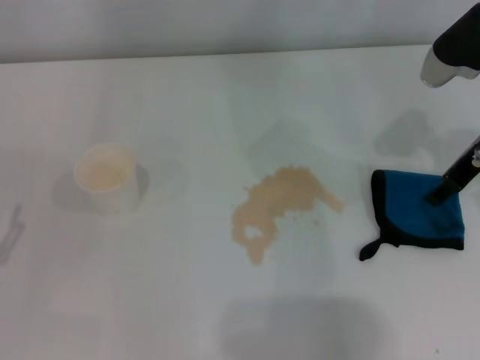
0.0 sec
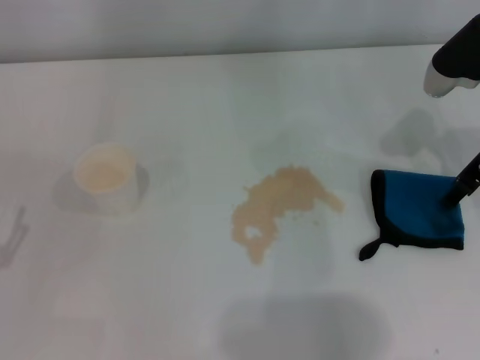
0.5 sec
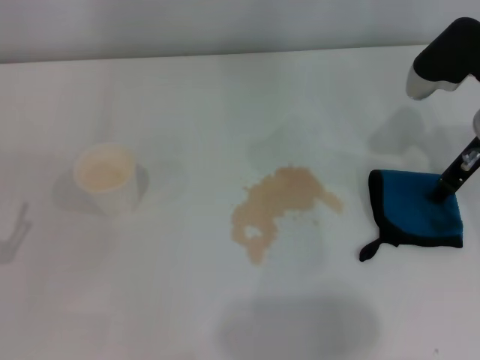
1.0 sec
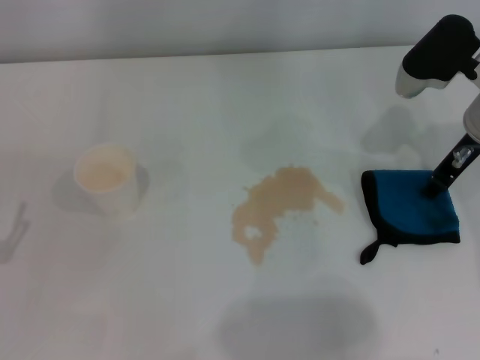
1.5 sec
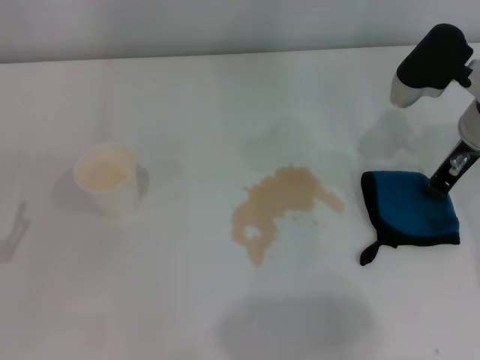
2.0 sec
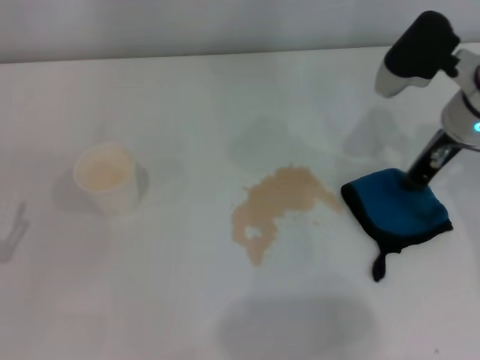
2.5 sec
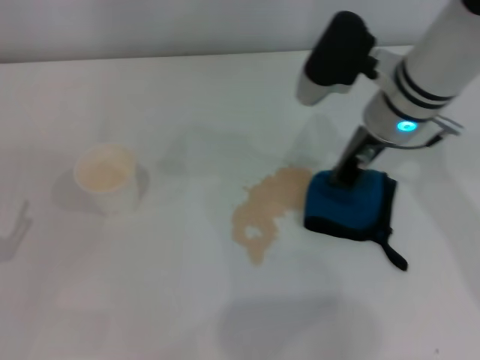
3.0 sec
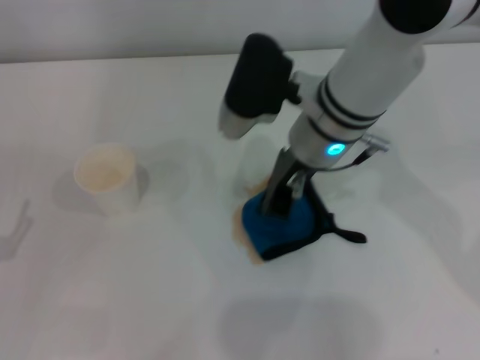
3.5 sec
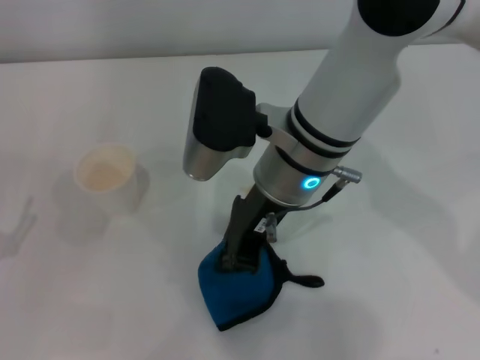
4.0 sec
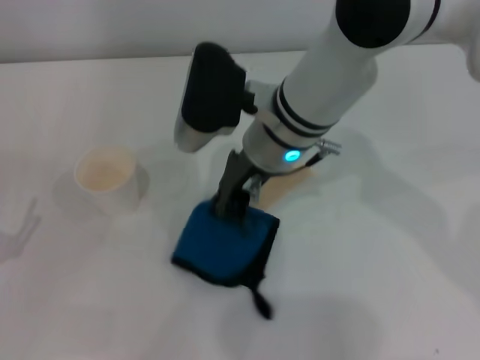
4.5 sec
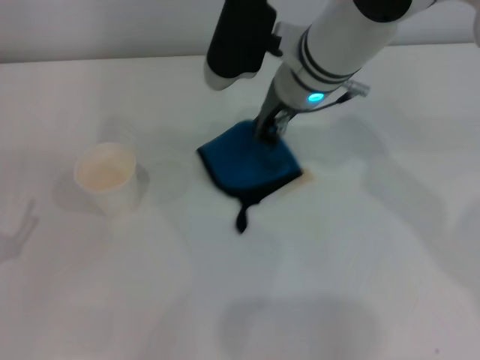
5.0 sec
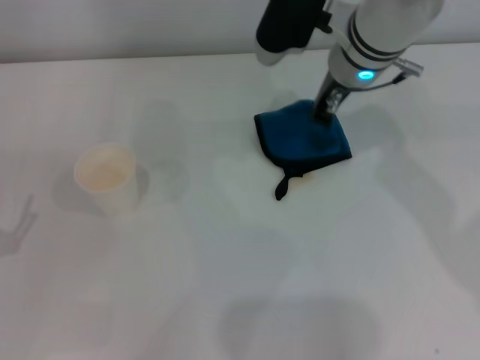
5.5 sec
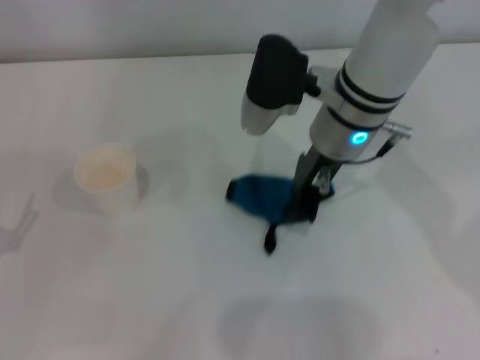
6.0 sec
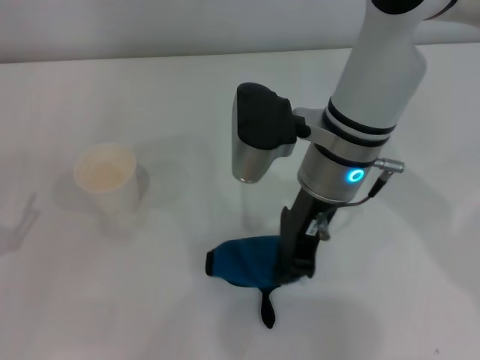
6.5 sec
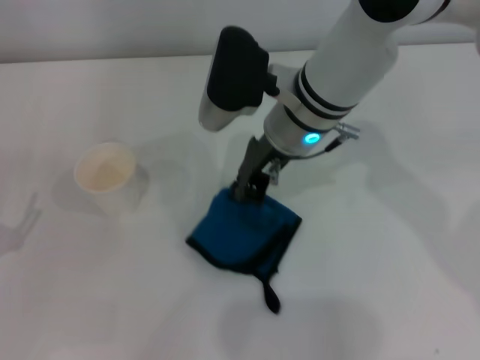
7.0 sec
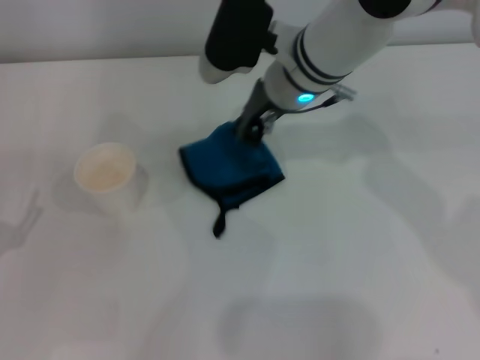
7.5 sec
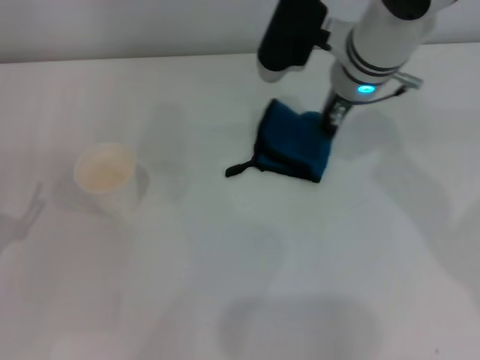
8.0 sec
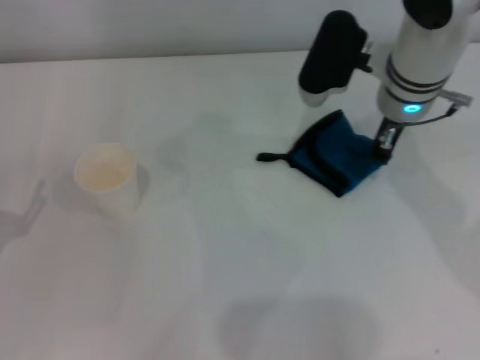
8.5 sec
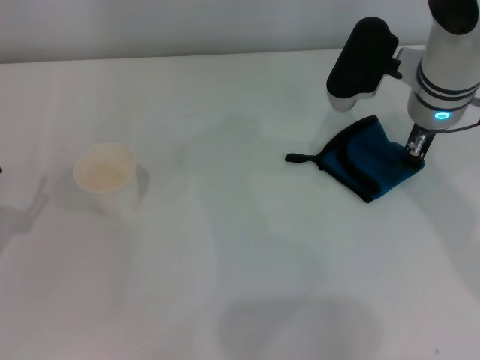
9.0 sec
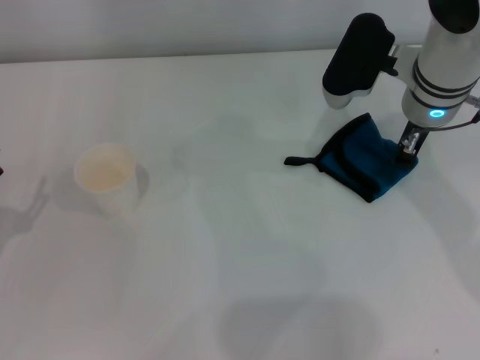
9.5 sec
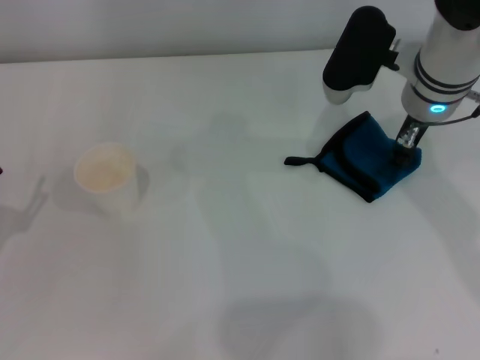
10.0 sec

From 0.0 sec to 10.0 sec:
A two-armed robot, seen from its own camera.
Step, from 0.0 sec to 2.0 sec: Grasp the rag with the right gripper.
Step, from 2.5 sec to 9.0 sec: Wipe the stains off the table with the right gripper.
From 0.0 sec to 2.0 sec: The right gripper closes.
From 2.0 sec to 4.0 sec: The right gripper moves to the left, roughly 20 cm.
From 4.0 sec to 6.0 sec: The right gripper goes some 5 cm to the right.
From 6.0 sec to 8.0 sec: The right gripper shifts by approximately 5 cm.
From 8.0 sec to 10.0 sec: The right gripper is displaced to the right by approximately 5 cm.

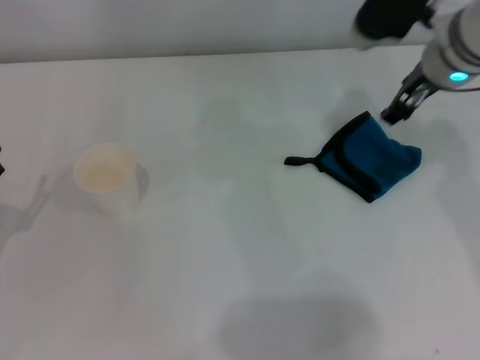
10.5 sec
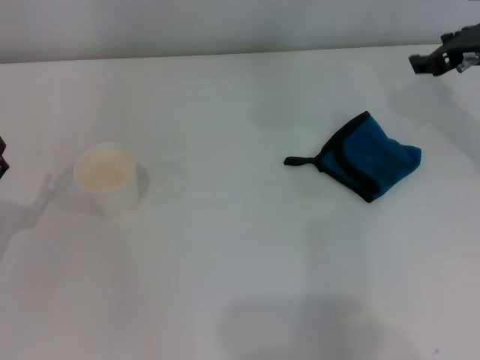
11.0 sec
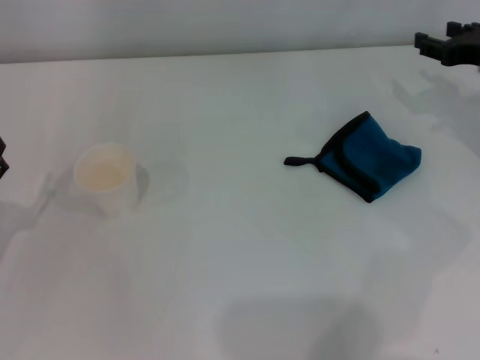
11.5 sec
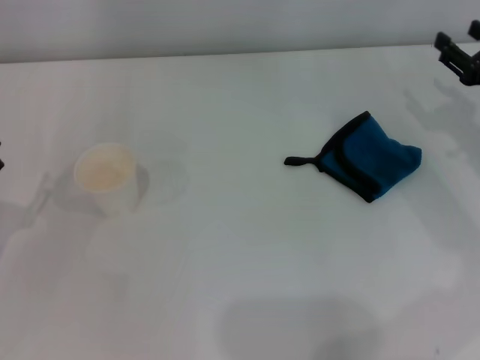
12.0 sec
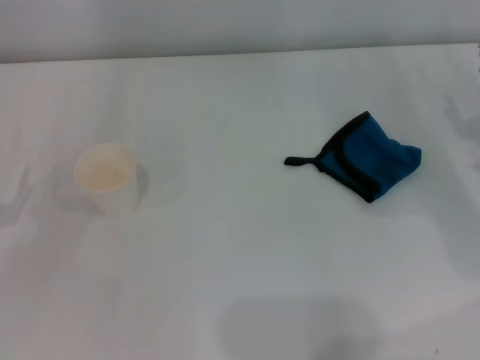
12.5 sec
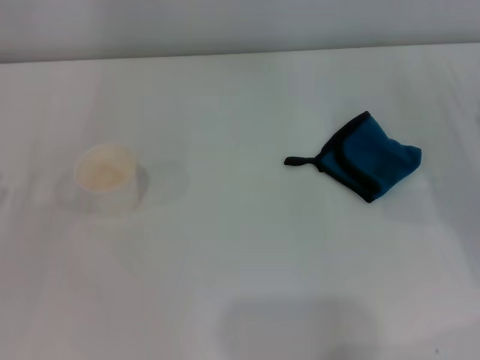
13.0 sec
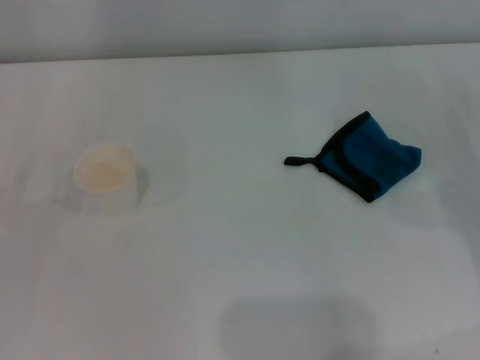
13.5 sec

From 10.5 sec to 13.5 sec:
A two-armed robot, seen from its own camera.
From 10.5 sec to 12.0 sec: The right gripper travels to the right, downward and backward by about 20 cm.
From 12.0 sec to 13.5 sec: The right gripper moves backward, some 5 cm.
